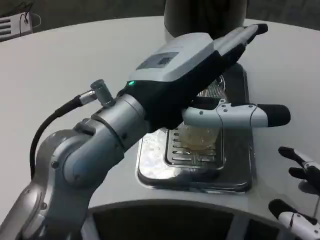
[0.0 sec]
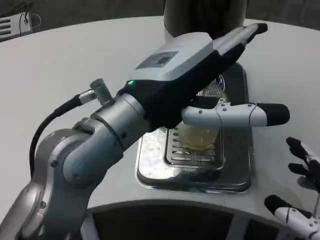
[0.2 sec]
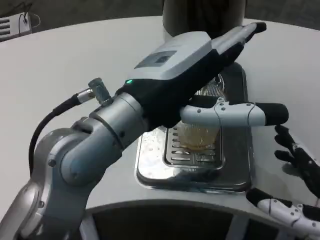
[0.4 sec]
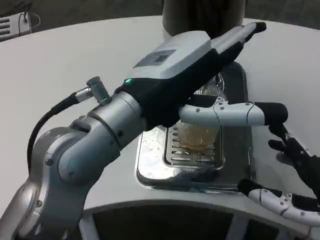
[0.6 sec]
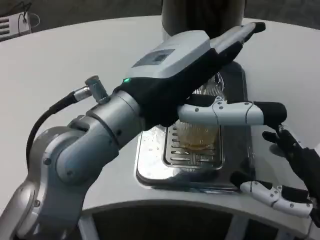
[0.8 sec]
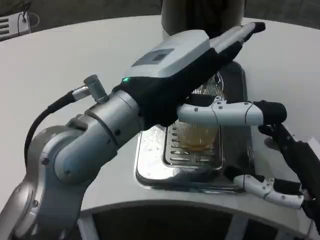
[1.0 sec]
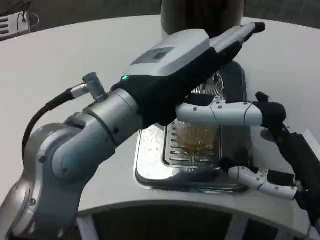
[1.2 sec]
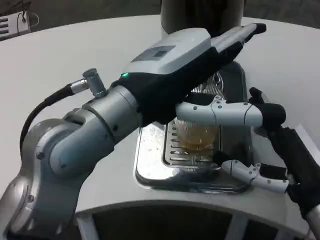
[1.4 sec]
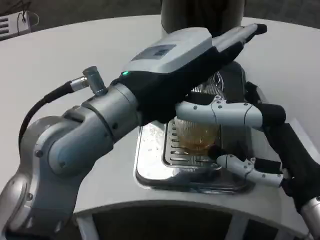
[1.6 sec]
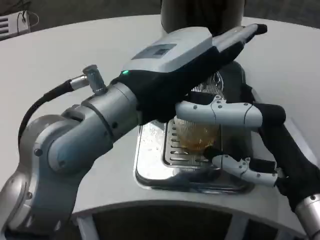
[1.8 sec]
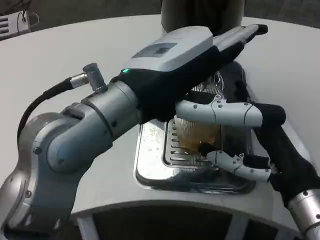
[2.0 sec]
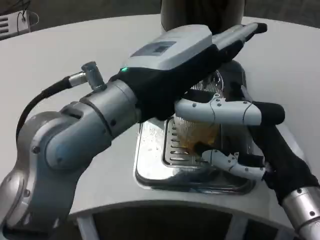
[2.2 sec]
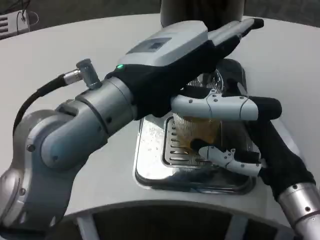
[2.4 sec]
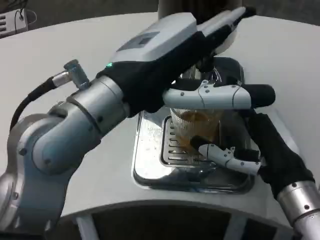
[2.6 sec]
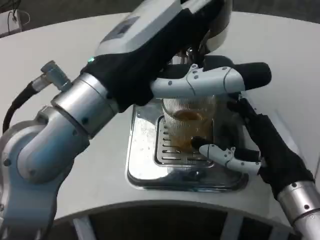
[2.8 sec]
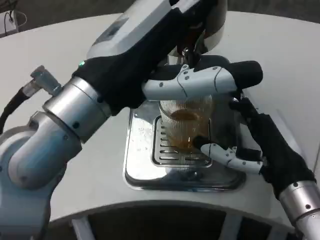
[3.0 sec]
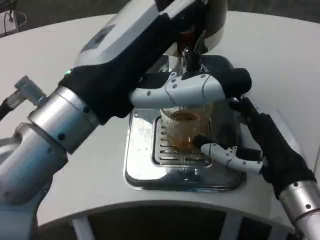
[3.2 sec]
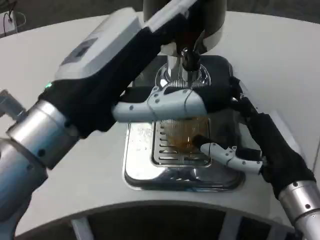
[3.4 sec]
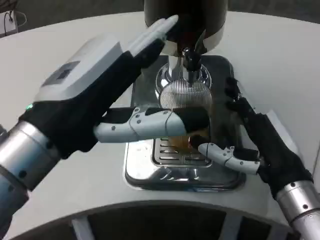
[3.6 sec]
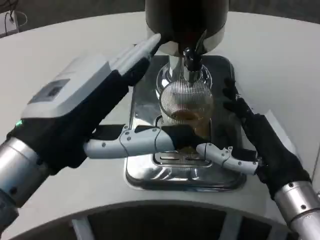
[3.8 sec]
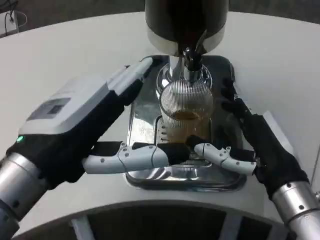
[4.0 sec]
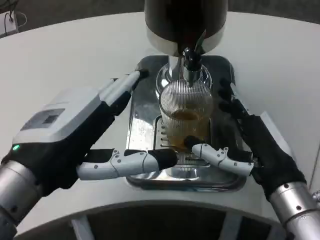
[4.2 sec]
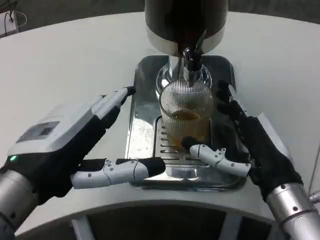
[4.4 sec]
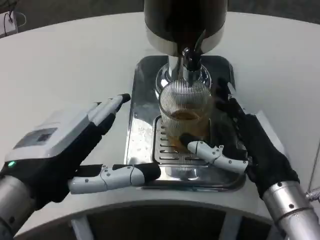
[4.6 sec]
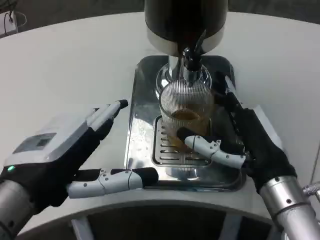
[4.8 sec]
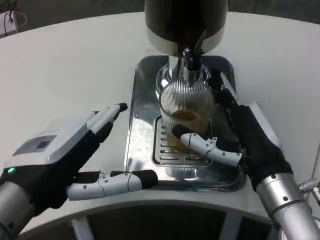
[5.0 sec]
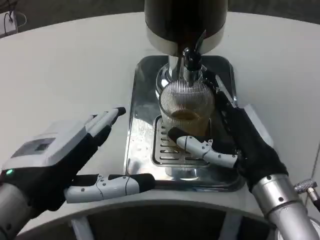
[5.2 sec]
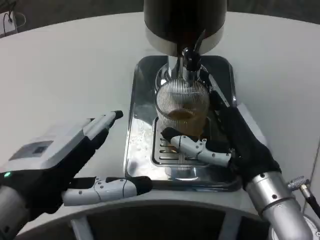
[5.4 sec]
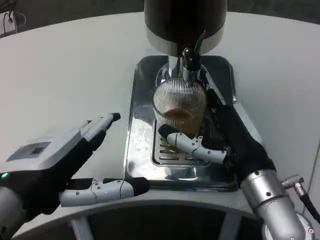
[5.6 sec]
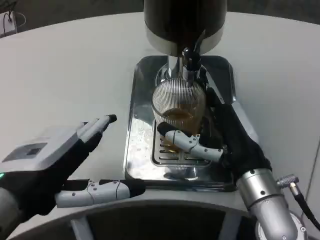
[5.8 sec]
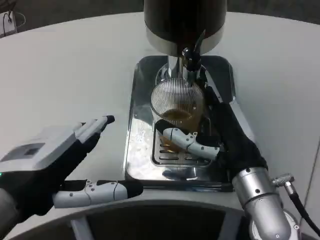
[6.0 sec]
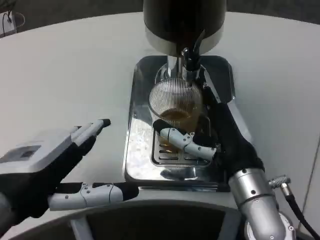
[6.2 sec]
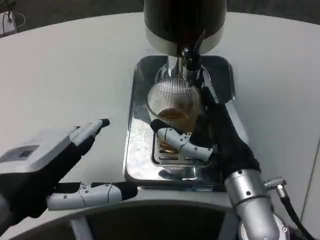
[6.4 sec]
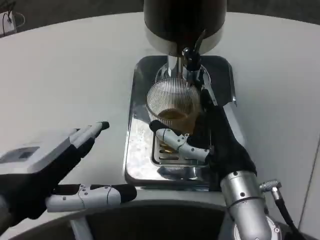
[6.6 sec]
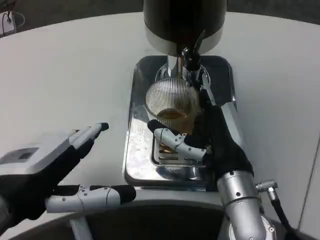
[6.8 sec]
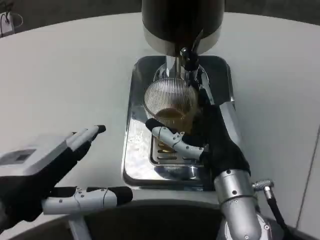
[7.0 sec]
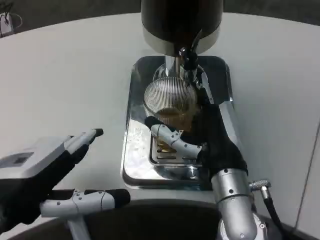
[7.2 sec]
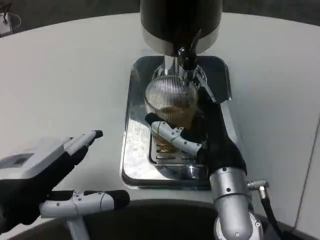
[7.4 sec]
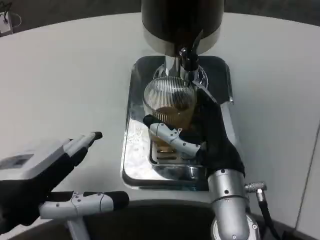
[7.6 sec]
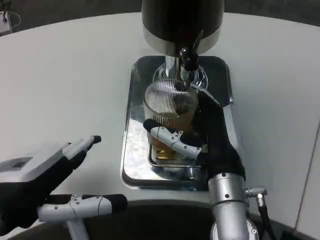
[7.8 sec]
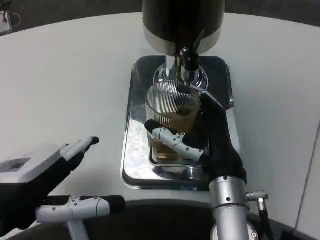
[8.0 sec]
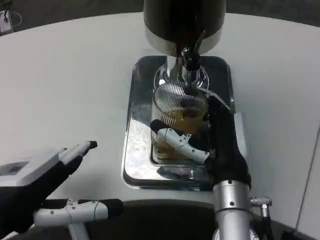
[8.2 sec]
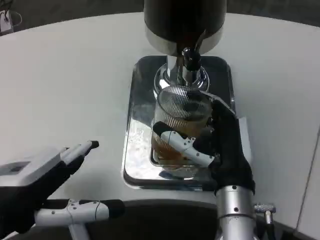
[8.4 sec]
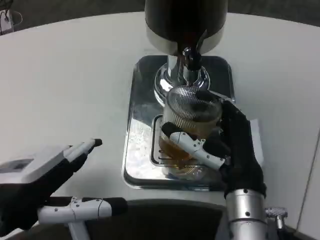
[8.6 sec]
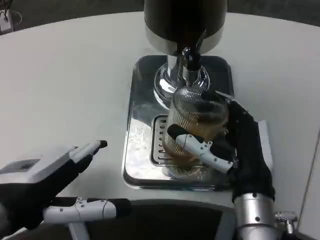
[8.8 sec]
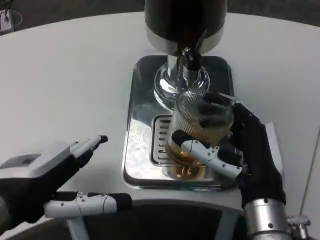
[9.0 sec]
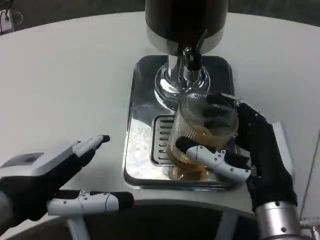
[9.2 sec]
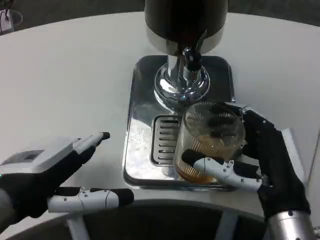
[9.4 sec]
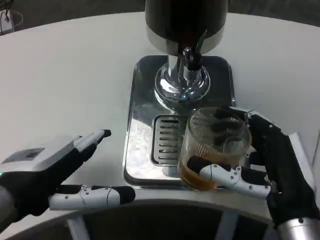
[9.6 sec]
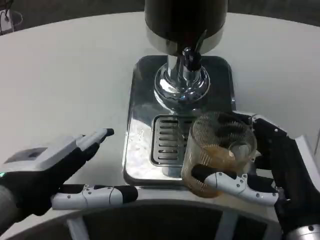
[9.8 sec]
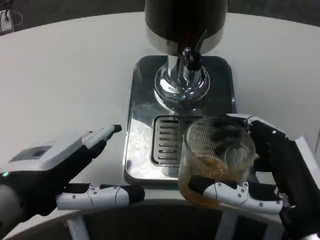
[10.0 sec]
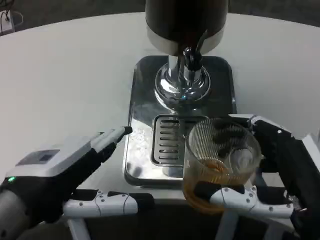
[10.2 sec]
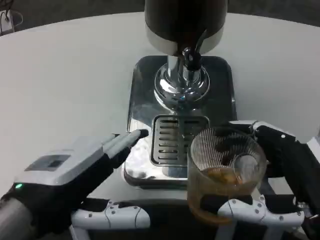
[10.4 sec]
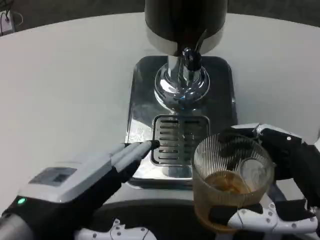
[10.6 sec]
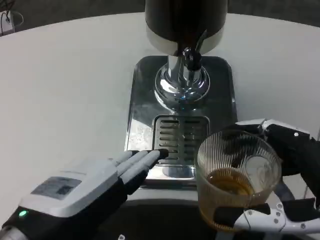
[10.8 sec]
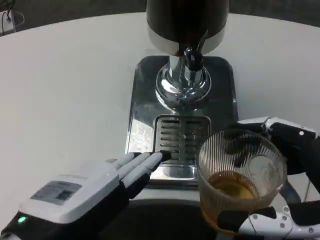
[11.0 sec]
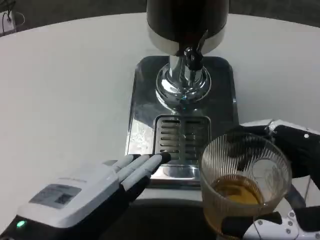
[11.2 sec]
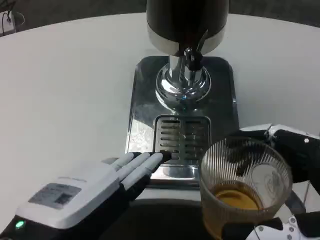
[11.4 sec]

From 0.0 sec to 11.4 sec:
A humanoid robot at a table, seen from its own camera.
Task of the whole recording: Grasp the cup under the faucet to collect the drink, then remove the cup.
From 0.0 sec to 1.4 sec: The right hand shifts some 10 cm forward and to the left.
From 2.8 sec to 4.2 sec: The left hand is displaced downward and to the left by approximately 10 cm.
From 5.6 sec to 7.2 sec: The right hand shifts by about 5 cm.
From 8.6 sec to 10.0 sec: The right hand goes about 10 cm backward and to the right.
From 10.0 sec to 11.4 sec: The left hand heads backward, covering some 5 cm, while the right hand heads backward and to the right, covering approximately 5 cm.

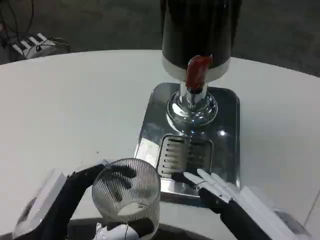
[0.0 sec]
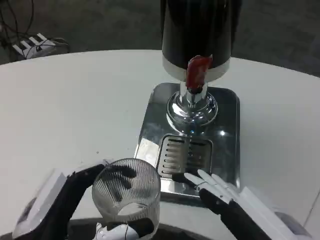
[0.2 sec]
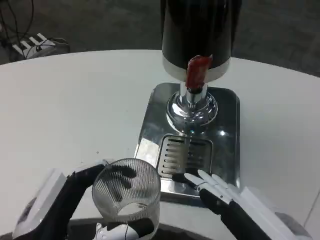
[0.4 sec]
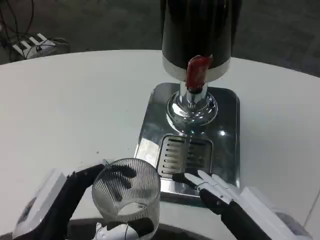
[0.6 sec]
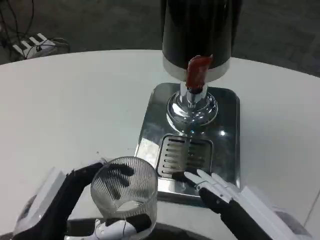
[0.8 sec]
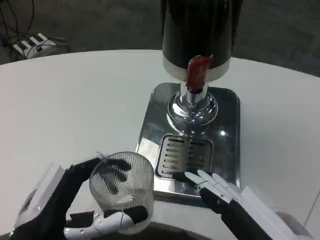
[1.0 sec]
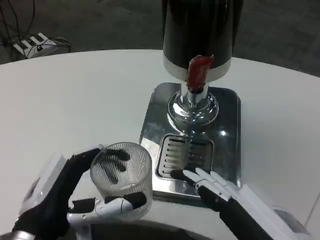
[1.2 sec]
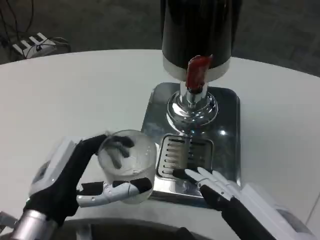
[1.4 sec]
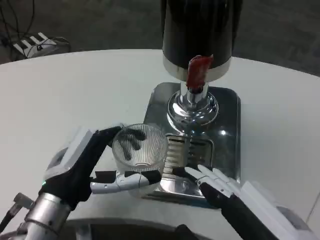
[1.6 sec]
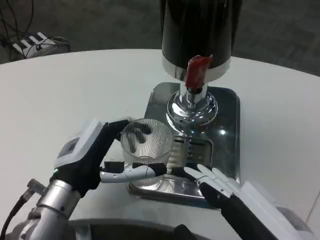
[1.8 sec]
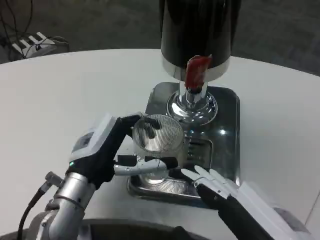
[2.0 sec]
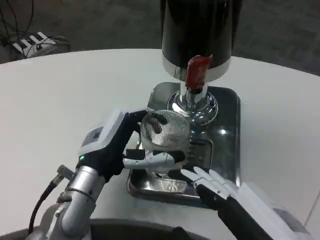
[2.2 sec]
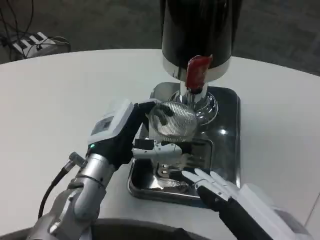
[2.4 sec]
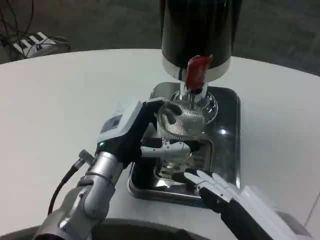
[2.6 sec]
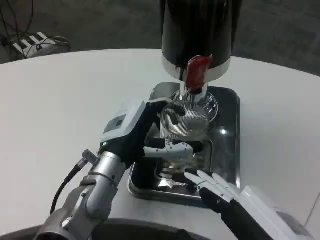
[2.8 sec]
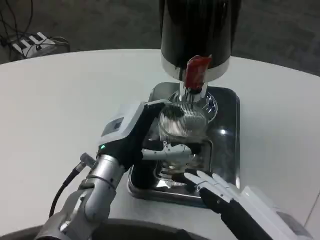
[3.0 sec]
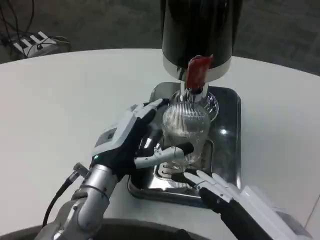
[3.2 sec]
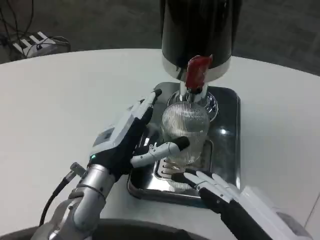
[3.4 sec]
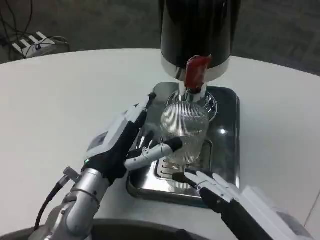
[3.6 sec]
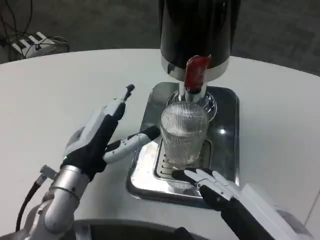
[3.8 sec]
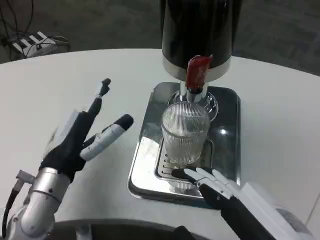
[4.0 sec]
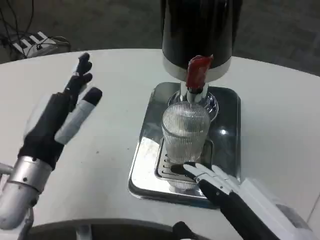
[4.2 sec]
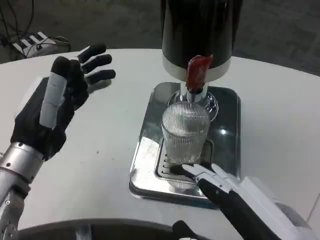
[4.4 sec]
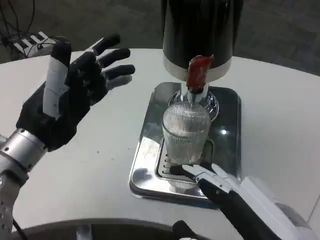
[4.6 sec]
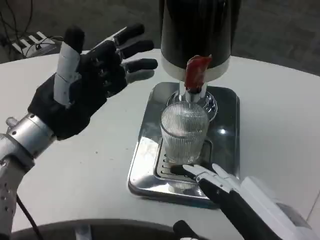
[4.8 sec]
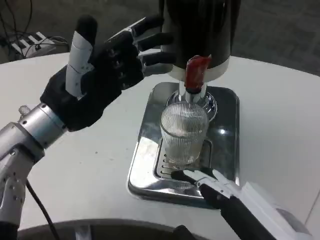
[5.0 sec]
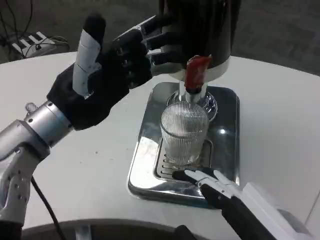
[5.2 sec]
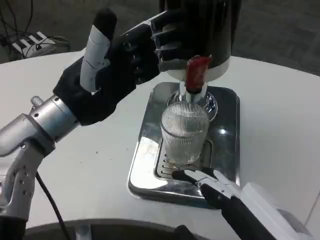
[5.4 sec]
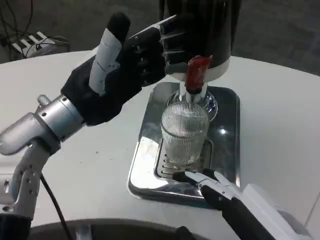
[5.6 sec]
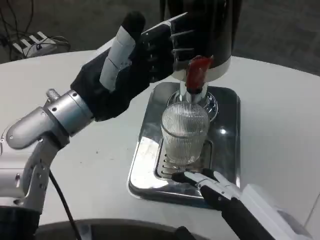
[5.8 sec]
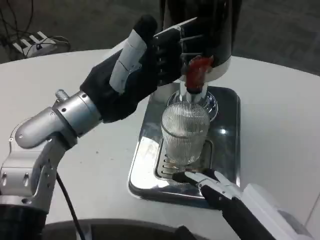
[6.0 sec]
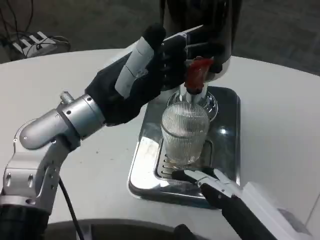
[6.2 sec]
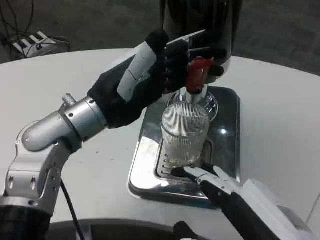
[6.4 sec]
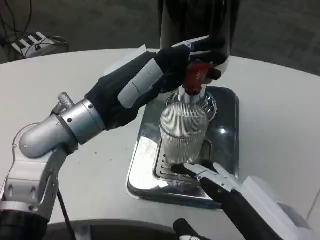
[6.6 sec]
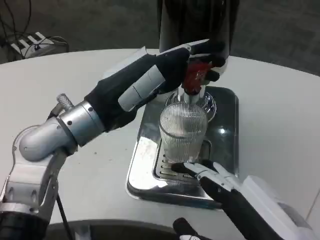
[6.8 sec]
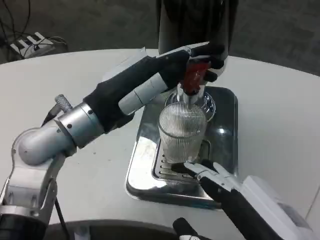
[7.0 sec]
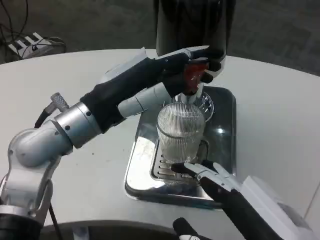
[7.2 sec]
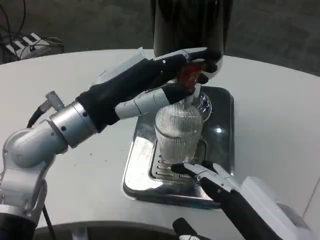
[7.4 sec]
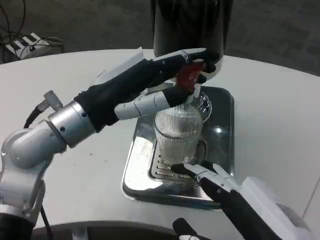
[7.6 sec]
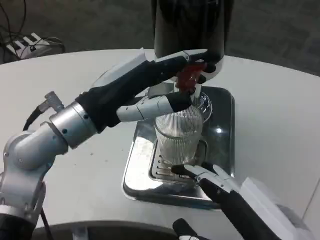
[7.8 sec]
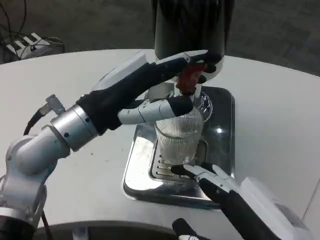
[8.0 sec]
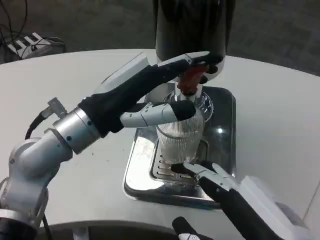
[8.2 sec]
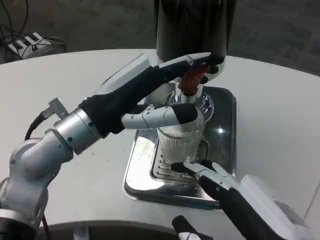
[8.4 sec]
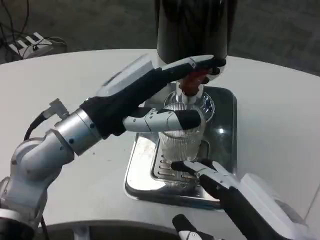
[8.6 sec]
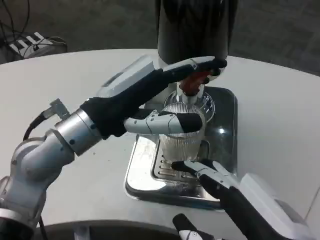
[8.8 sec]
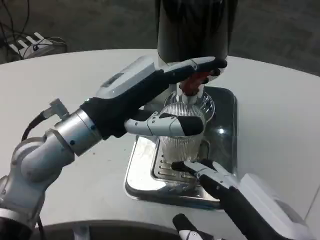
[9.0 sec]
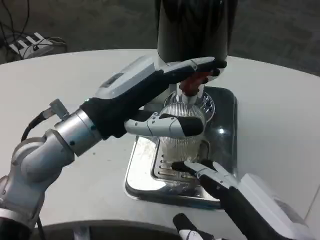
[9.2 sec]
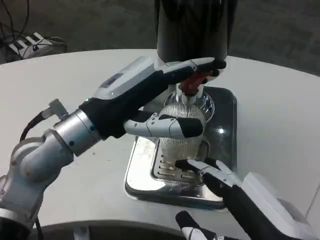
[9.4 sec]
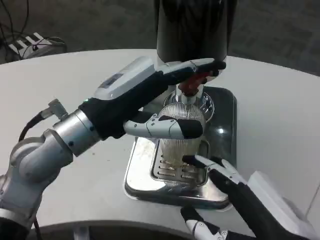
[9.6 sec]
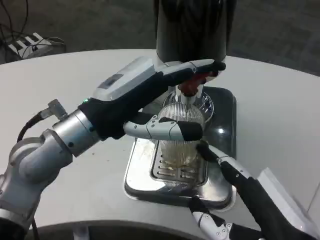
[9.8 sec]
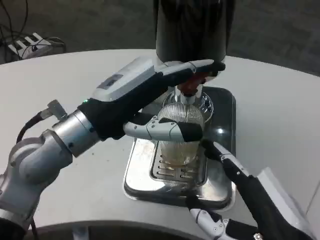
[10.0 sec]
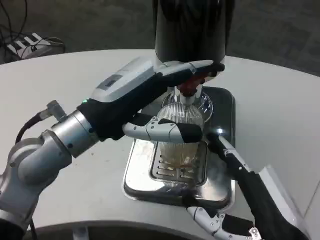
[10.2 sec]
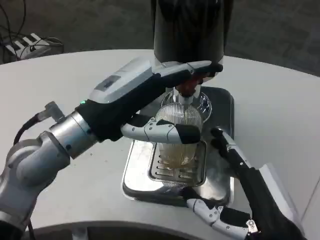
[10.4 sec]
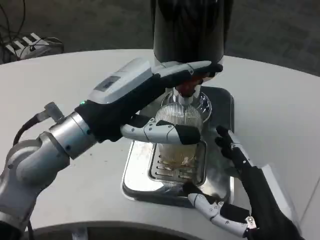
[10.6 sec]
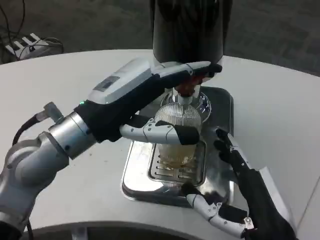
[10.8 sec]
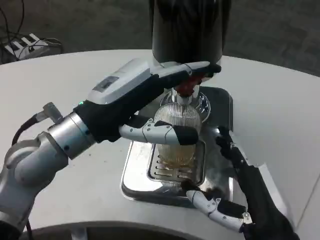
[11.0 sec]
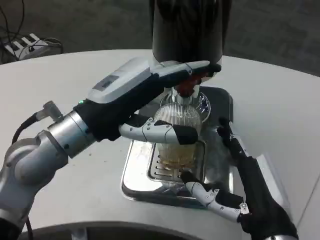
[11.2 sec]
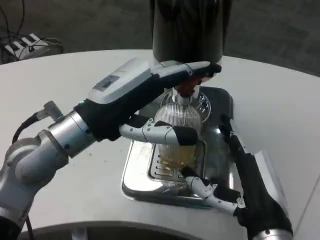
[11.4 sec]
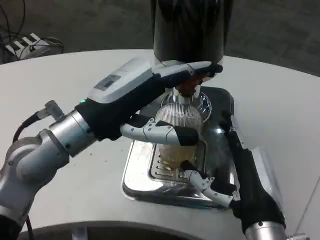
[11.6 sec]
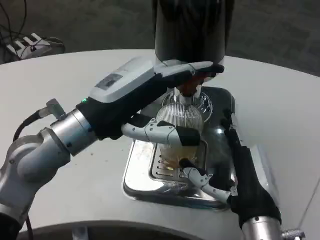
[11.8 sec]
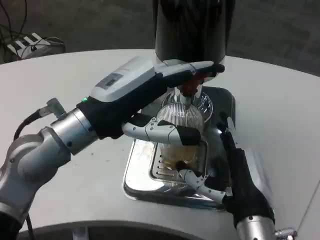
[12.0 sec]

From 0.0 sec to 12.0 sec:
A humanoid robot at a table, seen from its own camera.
Task of the whole recording: Grasp the cup under the faucet to collect the drink, then remove the cup.
From 0.0 sec to 1.6 sec: The left hand goes roughly 10 cm forward.
From 1.6 sec to 3.0 sec: The left hand goes roughly 10 cm forward and to the right.
From 3.0 sec to 4.4 sec: The left hand is displaced to the left and upward by some 10 cm.
From 4.4 sec to 6.0 sec: The left hand moves upward and to the right, some 10 cm.
From 9.0 sec to 10.4 sec: The right hand changes place by about 5 cm.
From 10.4 sec to 12.0 sec: The right hand travels forward by about 10 cm.
